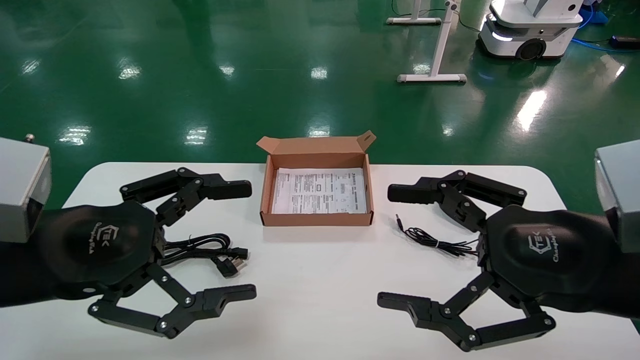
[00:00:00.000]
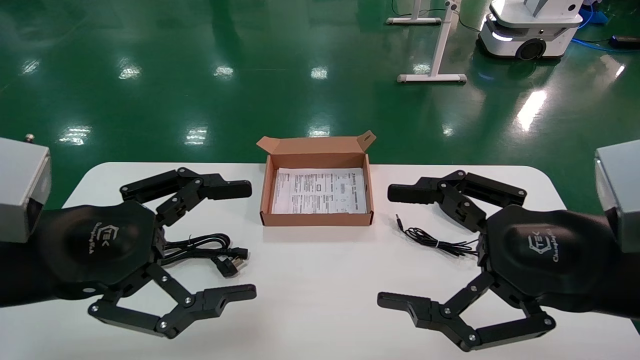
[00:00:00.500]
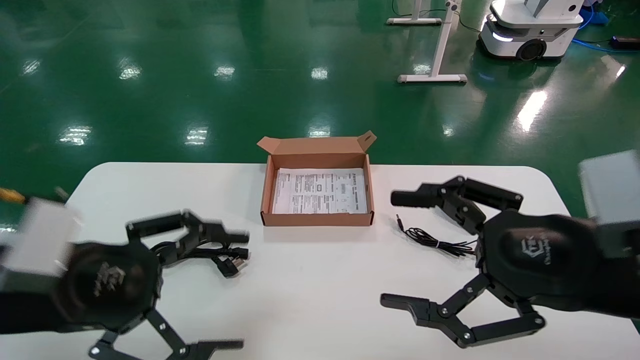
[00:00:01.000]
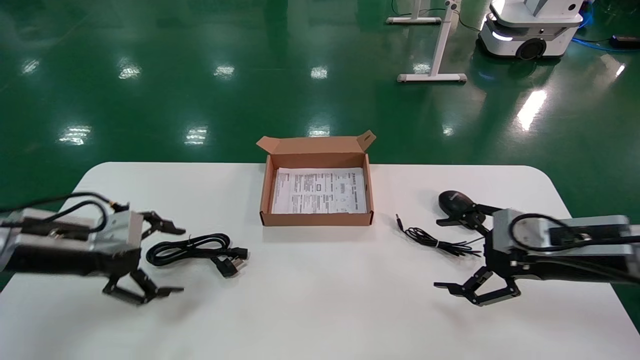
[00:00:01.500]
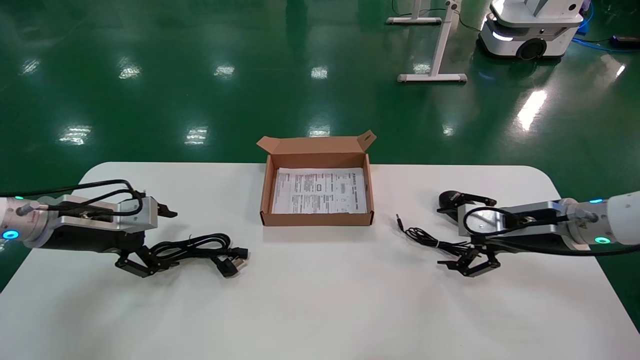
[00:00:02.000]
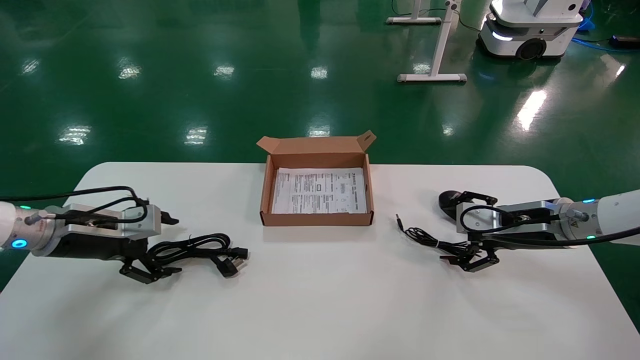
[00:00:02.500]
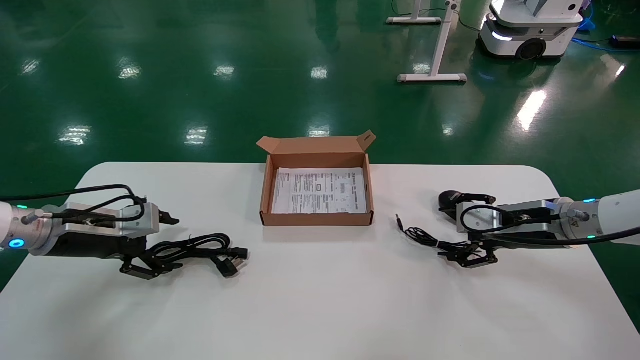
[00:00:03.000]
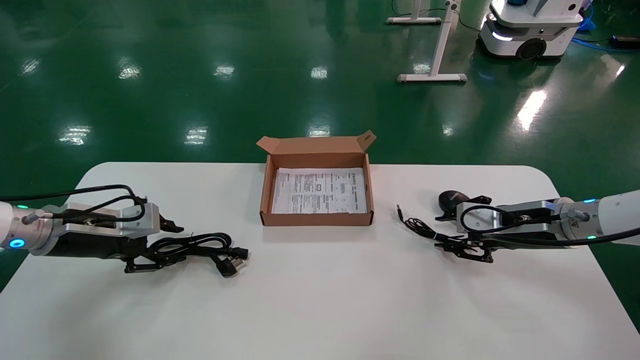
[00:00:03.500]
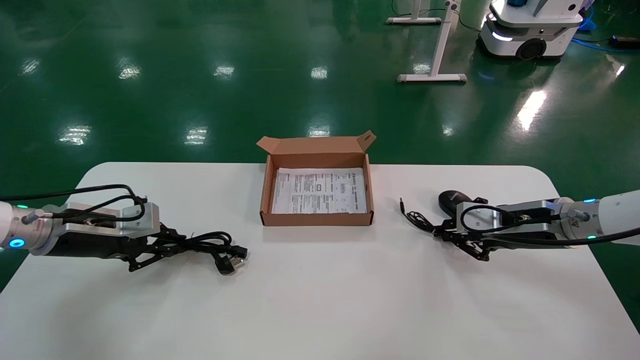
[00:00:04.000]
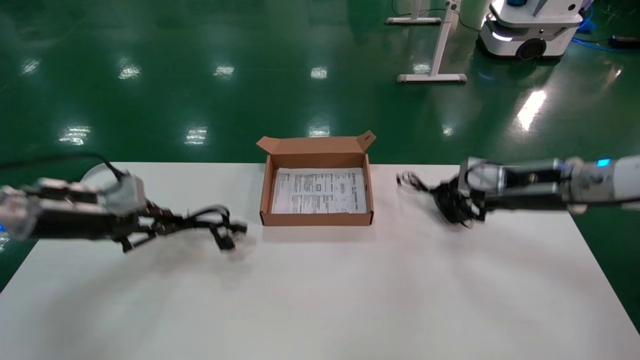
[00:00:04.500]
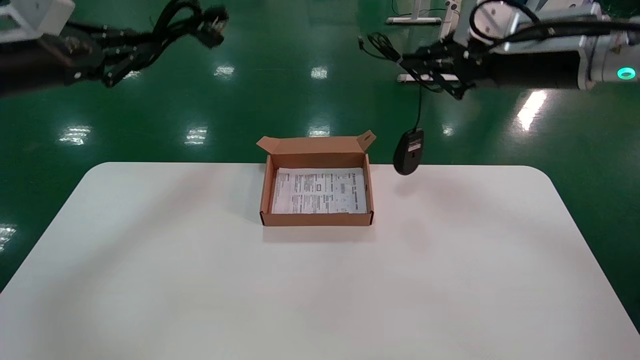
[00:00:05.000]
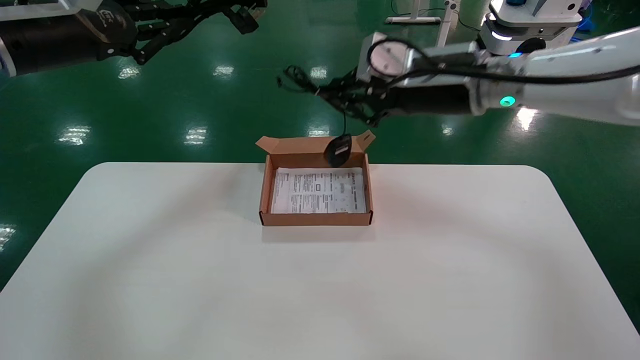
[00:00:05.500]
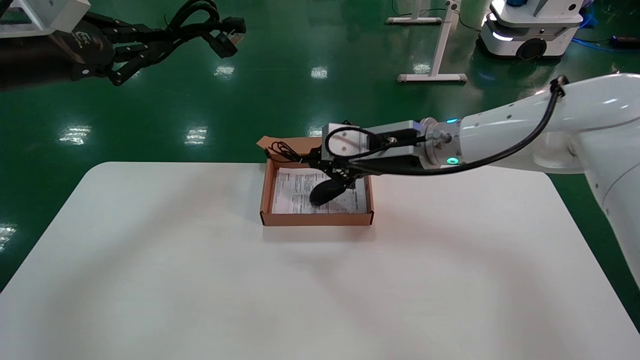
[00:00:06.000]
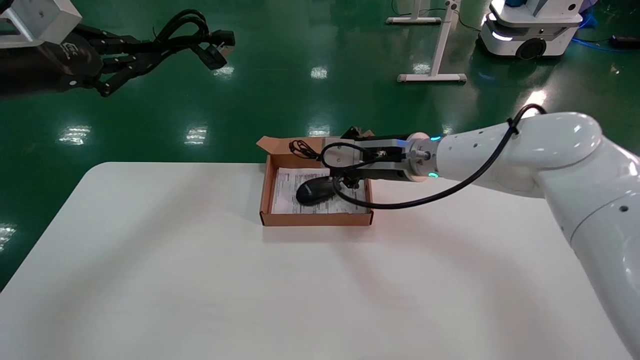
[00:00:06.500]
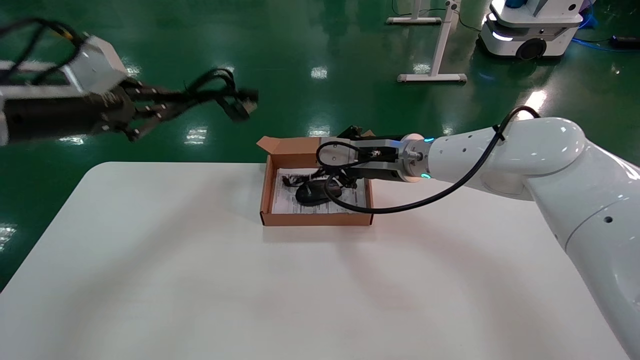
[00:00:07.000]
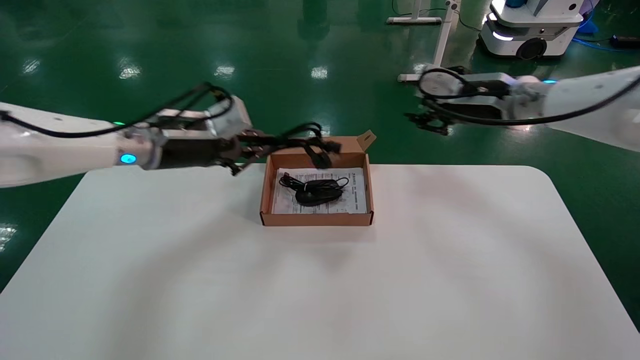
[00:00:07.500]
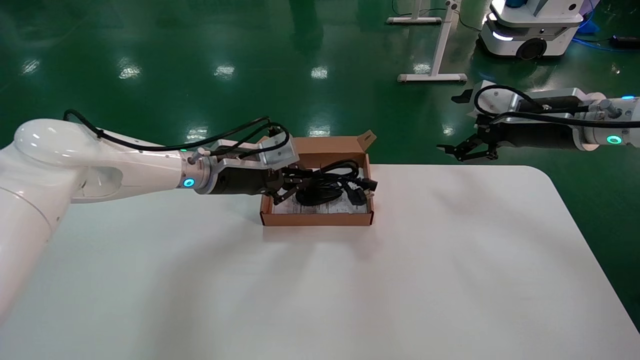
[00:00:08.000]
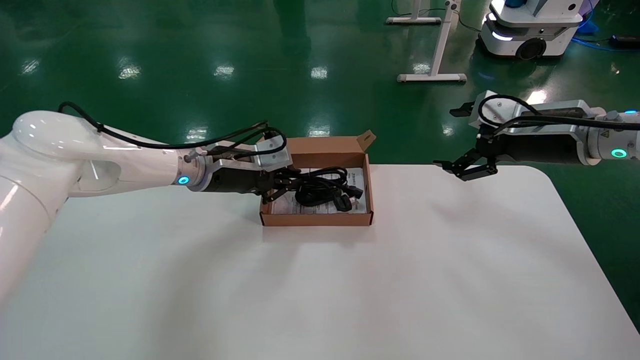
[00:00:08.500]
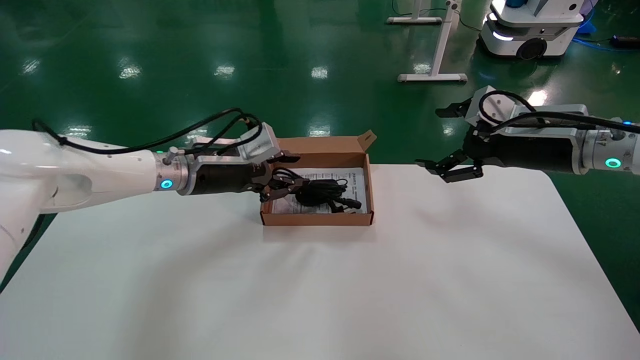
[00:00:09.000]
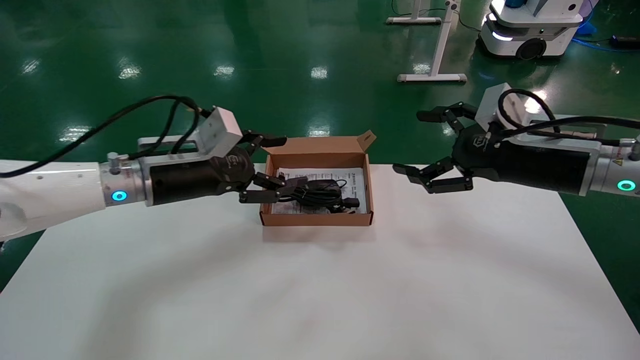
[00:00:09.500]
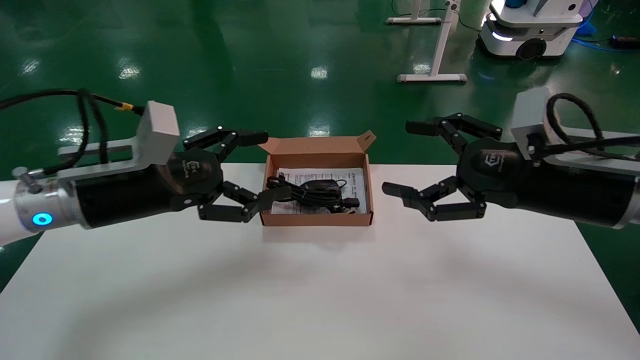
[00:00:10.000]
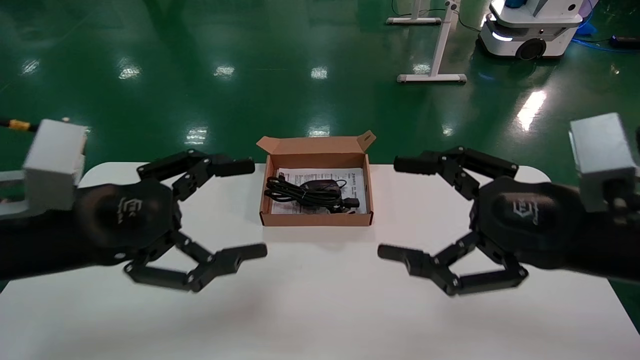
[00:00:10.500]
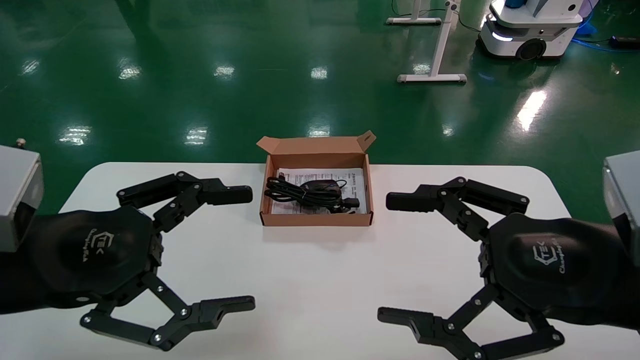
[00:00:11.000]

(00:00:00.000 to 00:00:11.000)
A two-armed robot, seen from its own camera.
Step, 00:00:01.500 - 00:00:04.000: Grab and lift both the mouse and power cord from the accessory packaging area at the same time.
Step, 00:00:04.500 - 00:00:09.000: Place the mouse and power cord into the box.
00:00:00.000 - 00:00:02.000: The right gripper is displaced forward and downward by some 20 cm, while the left gripper is displaced forward and to the left by roughly 20 cm.
00:00:02.000 - 00:00:03.500: The right gripper closes up; the left gripper closes its fingers.
00:00:03.500 - 00:00:05.500: The left gripper travels upward by some 25 cm, and closes. The right gripper goes about 25 cm upward and to the left, and closes.
00:00:05.500 - 00:00:07.500: The right gripper goes approximately 10 cm to the right and forward, and opens its fingers; the left gripper travels downward, to the right and forward by approximately 20 cm.
00:00:07.500 - 00:00:09.000: The left gripper changes place by approximately 5 cm; the right gripper moves backward and to the right, roughly 10 cm, and opens up.
00:00:09.000 - 00:00:11.000: The two grippers go approximately 25 cm backward. The left gripper opens its fingers.

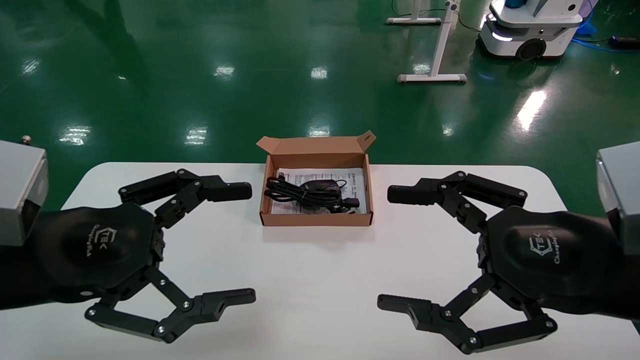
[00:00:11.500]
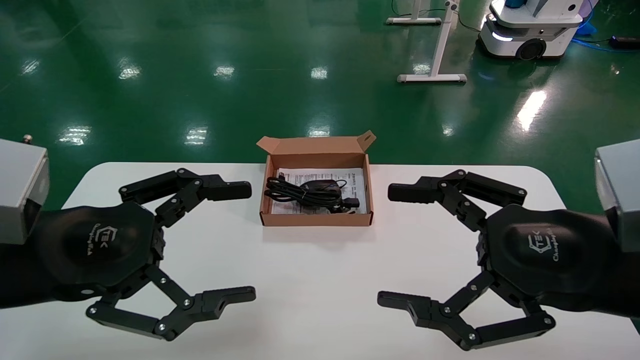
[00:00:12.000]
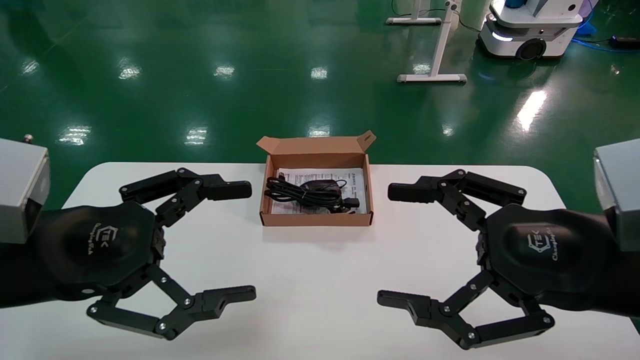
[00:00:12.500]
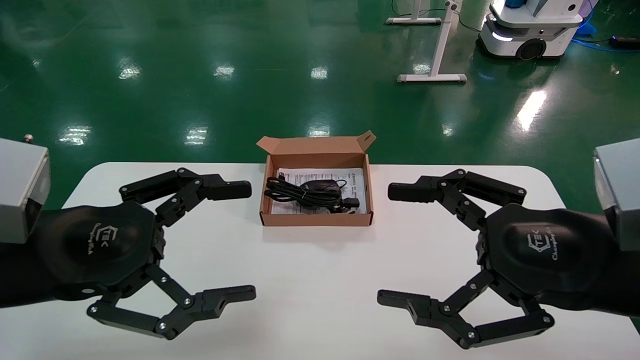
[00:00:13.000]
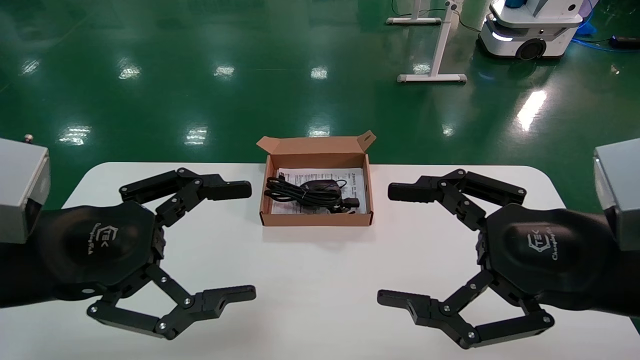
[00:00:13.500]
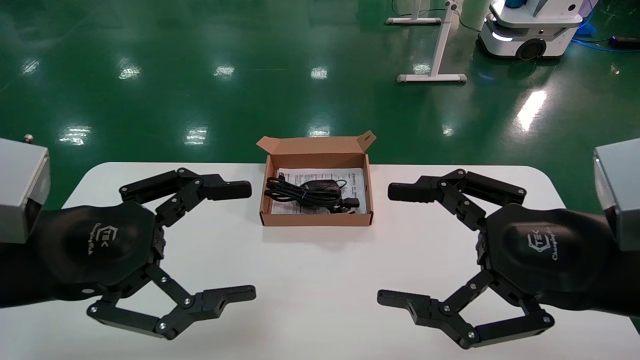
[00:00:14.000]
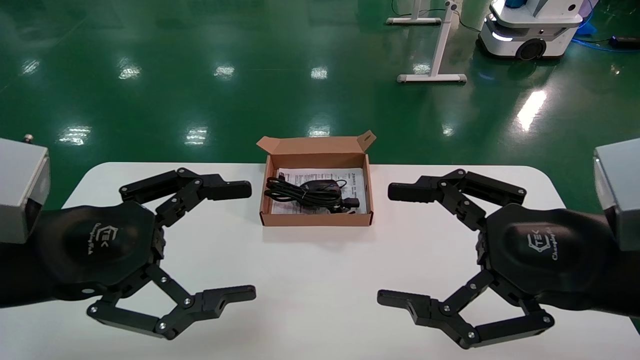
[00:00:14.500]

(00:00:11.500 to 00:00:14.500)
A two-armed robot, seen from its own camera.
00:00:11.500 - 00:00:14.500: The two grippers keep their place.
